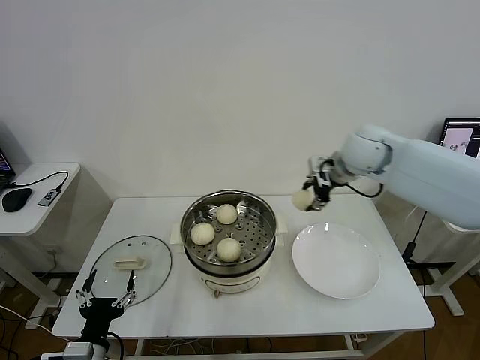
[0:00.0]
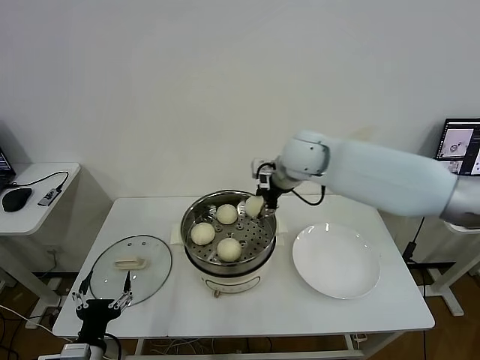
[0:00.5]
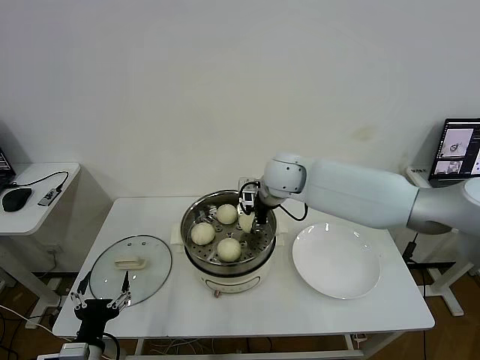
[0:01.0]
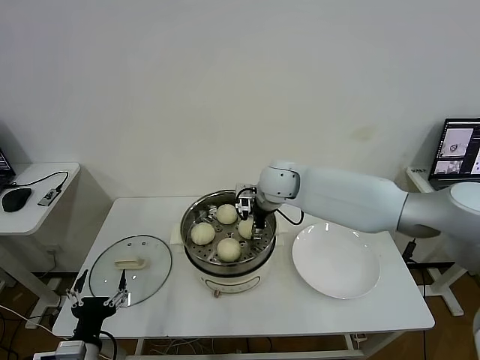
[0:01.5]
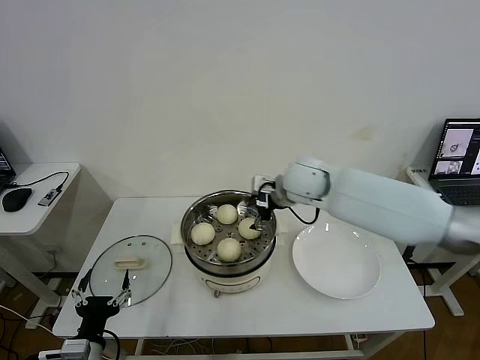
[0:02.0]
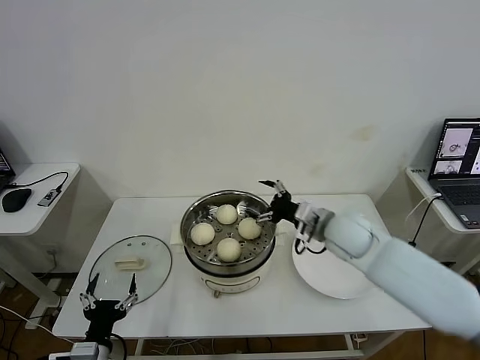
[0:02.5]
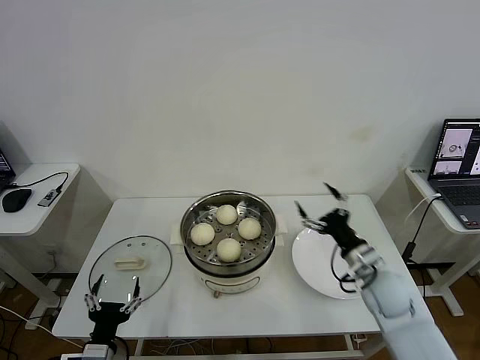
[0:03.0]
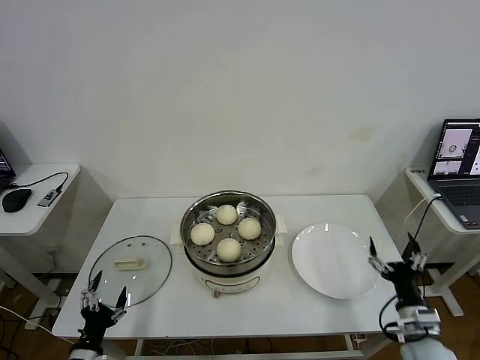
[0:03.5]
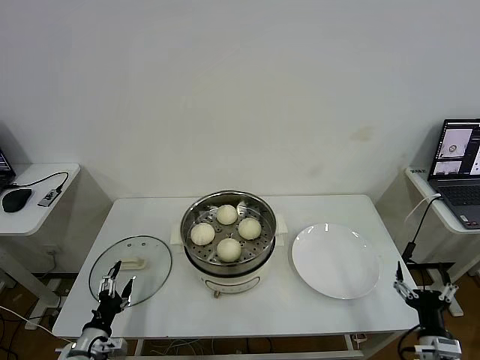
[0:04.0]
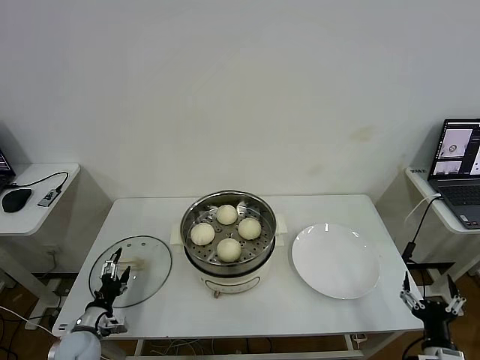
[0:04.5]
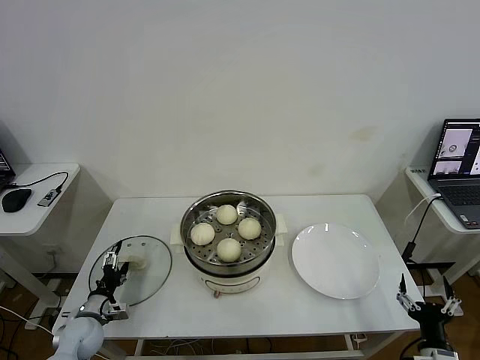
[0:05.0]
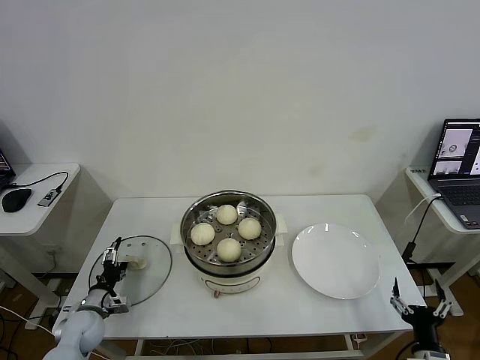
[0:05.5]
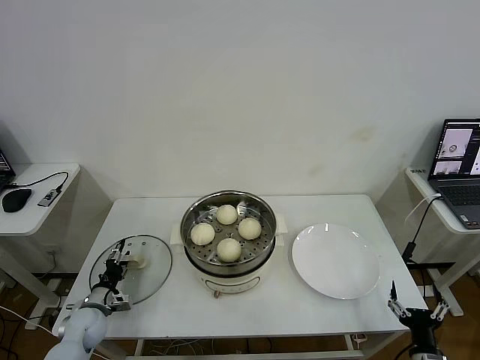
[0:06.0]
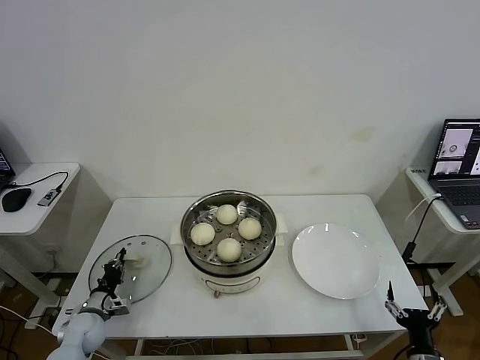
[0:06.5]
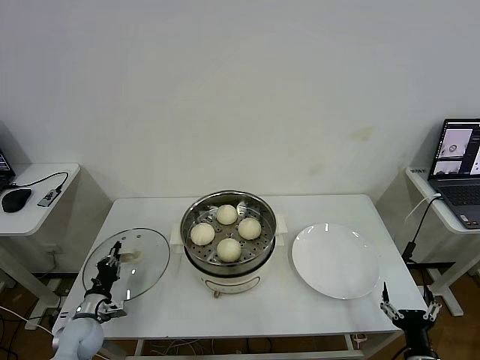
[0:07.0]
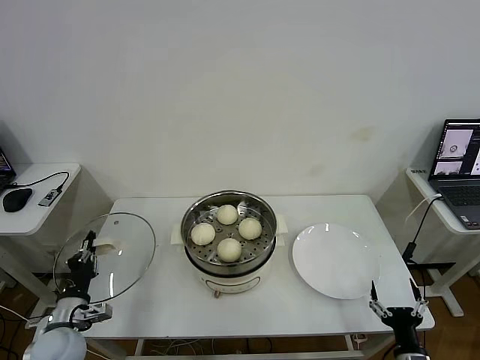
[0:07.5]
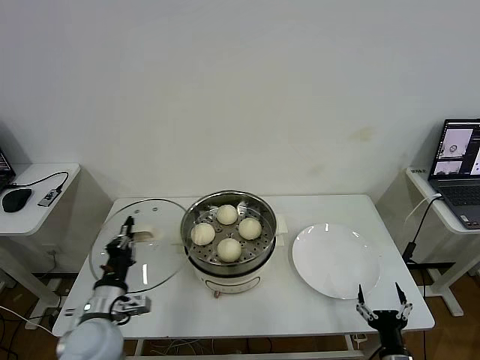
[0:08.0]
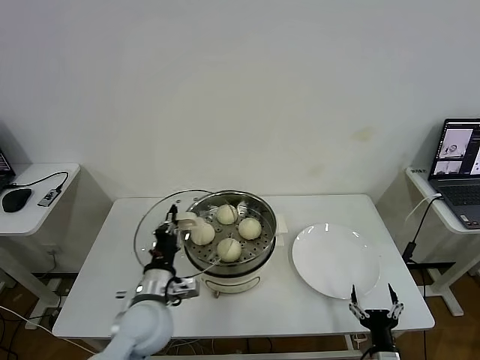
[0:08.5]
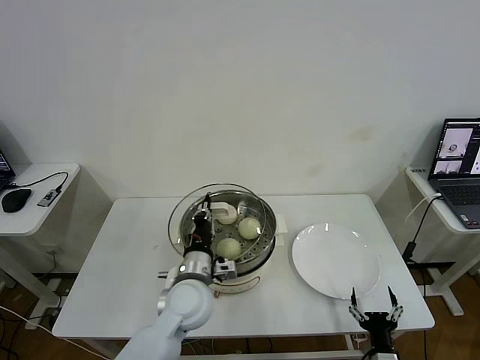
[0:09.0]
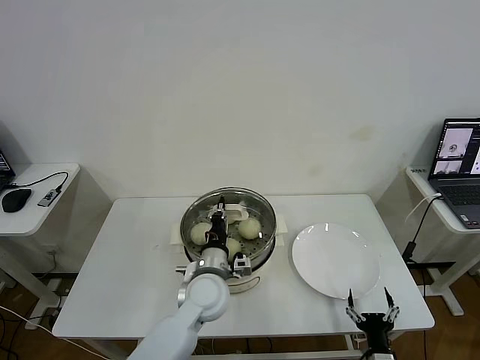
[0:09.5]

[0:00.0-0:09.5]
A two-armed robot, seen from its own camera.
Task of the whole recording: take steamed baozi put them in steamer then cover it.
Step, 0:00.0 to 0:01.5: Place the baozi on the steamer with right gripper.
Step, 0:02.0 to 0:06.5: Grasp the pot lid with left gripper.
0:00.0 to 0:02.0: The right gripper travels to the left and downward by roughly 10 cm, and opens.
0:02.0 to 0:04.0: The right gripper travels backward, to the right and downward by some 50 cm, while the left gripper shifts roughly 10 cm downward and to the left.
0:04.0 to 0:05.5: The left gripper heads forward, covering about 10 cm.
0:05.5 to 0:07.5: The left gripper shifts about 10 cm upward and backward, and closes.
0:07.5 to 0:09.5: The left gripper goes roughly 30 cm to the right, while the right gripper heads to the left, covering some 5 cm.

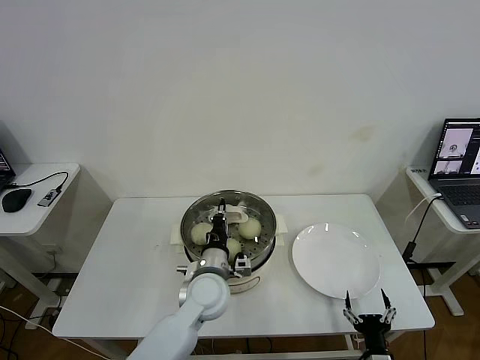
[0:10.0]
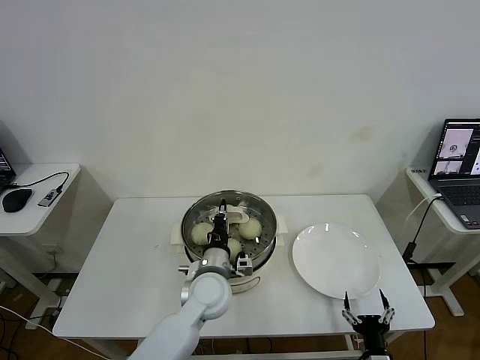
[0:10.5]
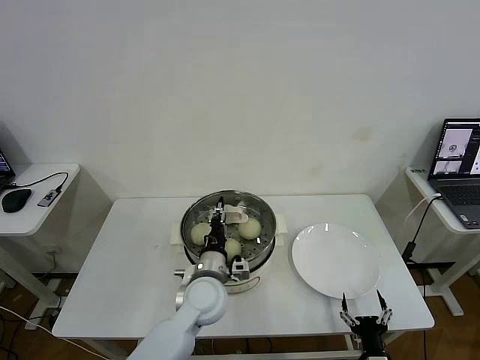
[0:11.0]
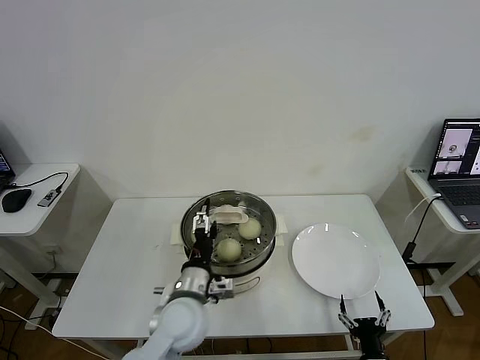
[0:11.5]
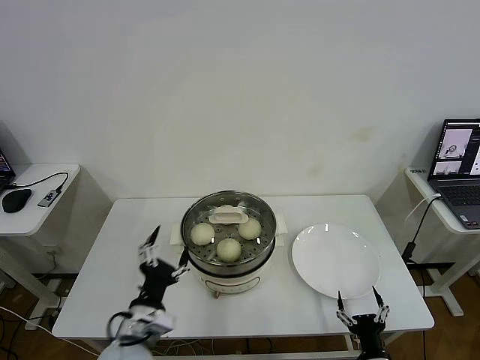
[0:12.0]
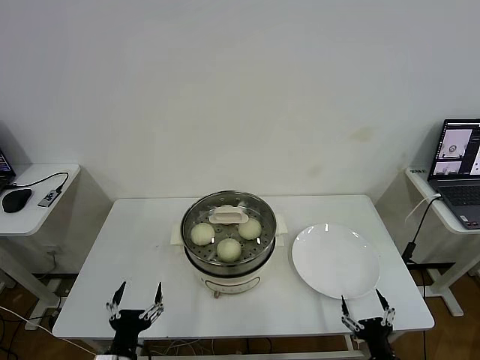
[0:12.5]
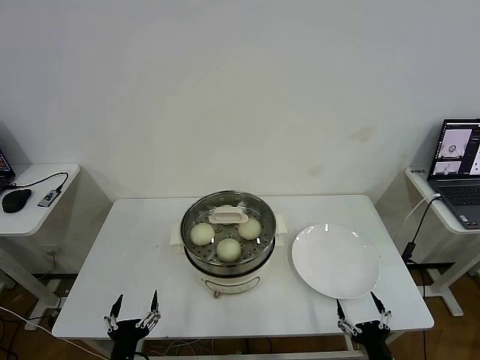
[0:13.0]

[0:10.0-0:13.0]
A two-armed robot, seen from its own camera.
Task of the whole recording: take steamed baozi put them in steamer then cover it.
0:10.0 to 0:11.5: The left gripper heads backward, covering roughly 5 cm, and opens.
0:11.5 to 0:13.0: The left gripper travels backward, to the left and downward by roughly 25 cm. Meanwhile the right gripper shifts by some 5 cm.
